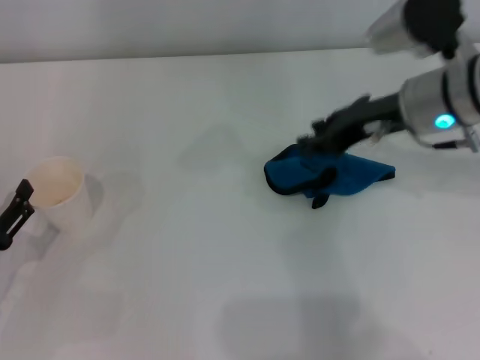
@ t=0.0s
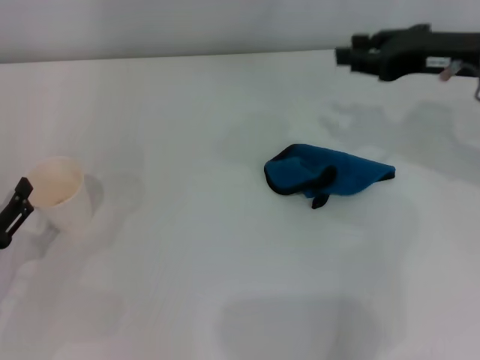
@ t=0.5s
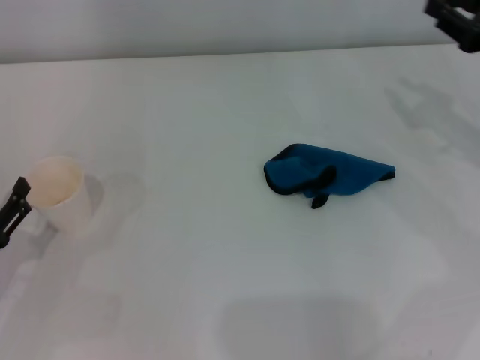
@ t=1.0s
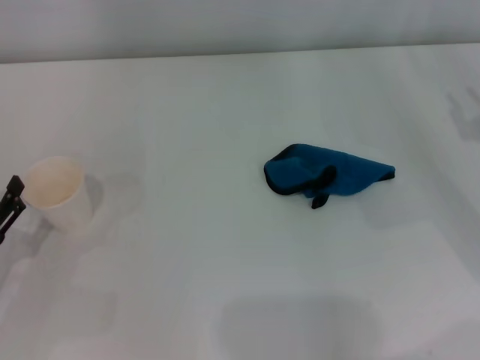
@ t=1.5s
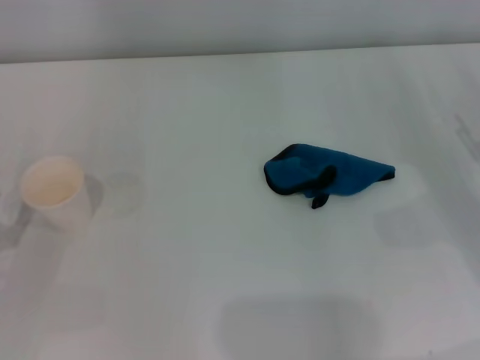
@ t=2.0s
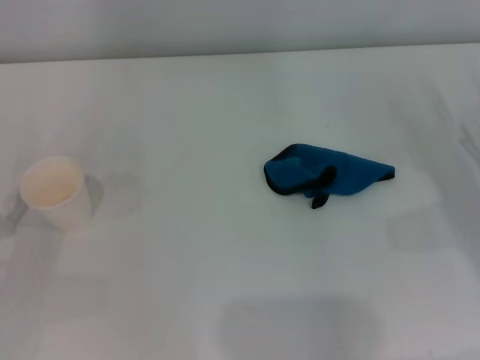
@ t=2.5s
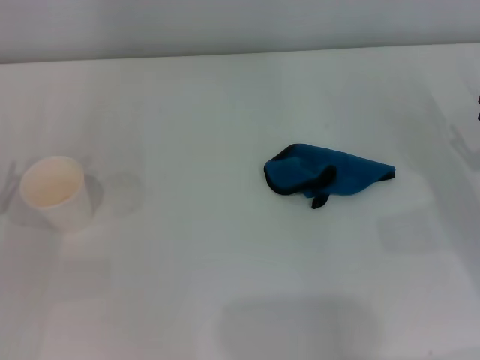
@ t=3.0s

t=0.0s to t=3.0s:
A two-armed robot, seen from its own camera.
t=0.0s to t=1.5s: The right gripper heads to the right and backward, covering roughly 20 cm.
